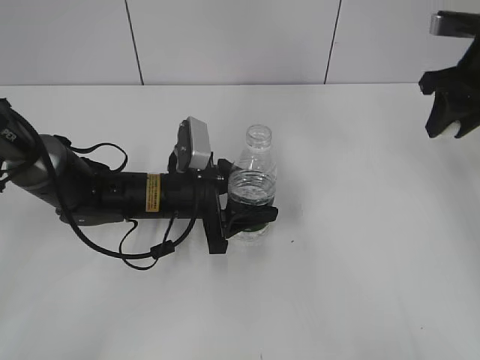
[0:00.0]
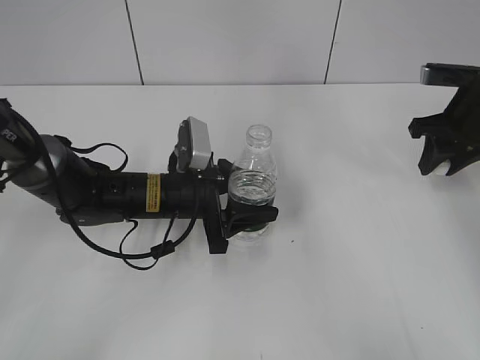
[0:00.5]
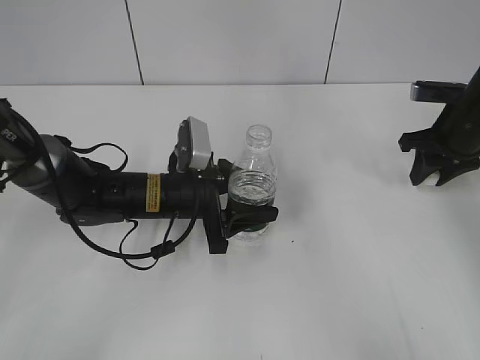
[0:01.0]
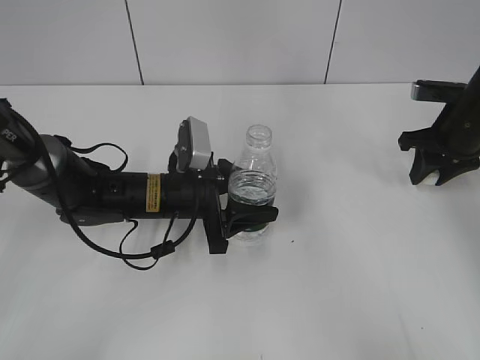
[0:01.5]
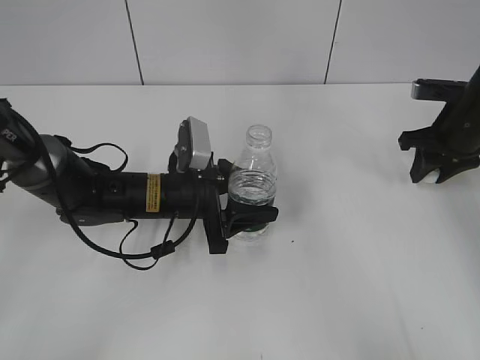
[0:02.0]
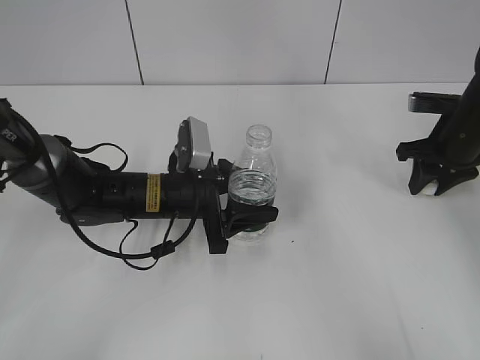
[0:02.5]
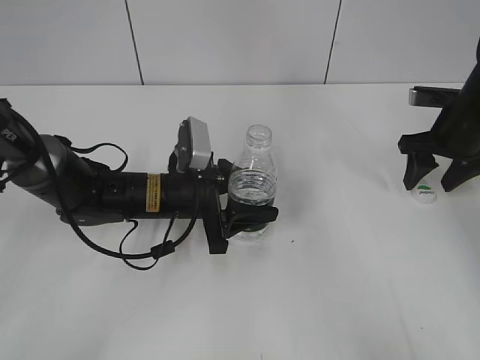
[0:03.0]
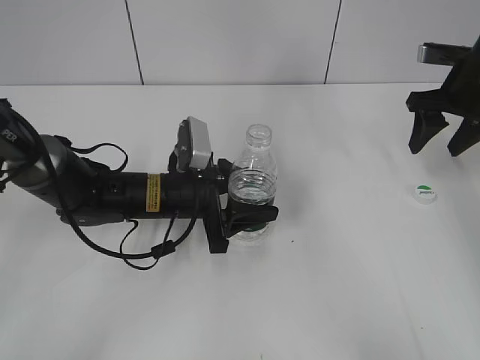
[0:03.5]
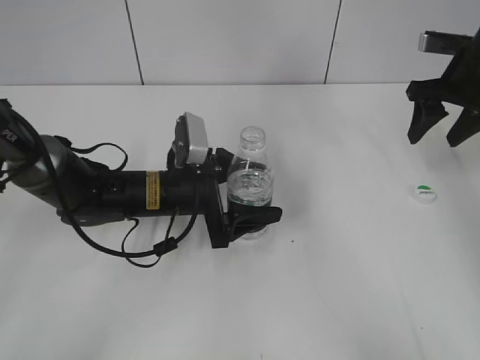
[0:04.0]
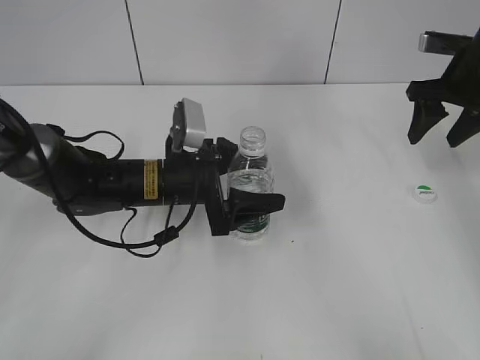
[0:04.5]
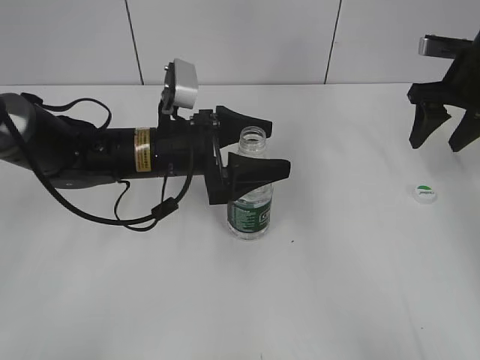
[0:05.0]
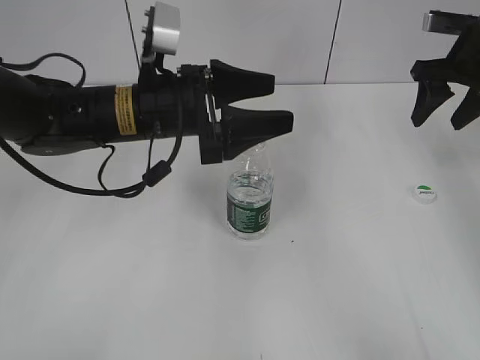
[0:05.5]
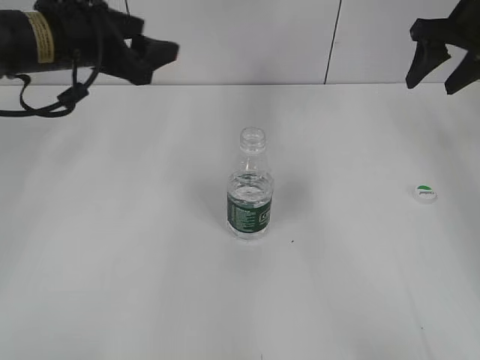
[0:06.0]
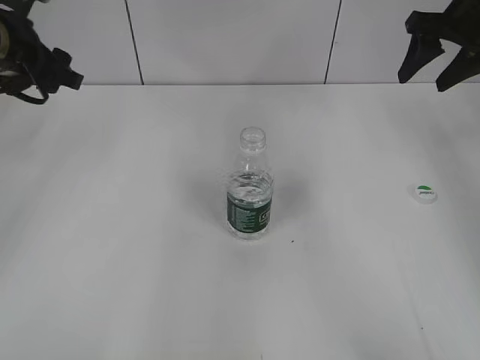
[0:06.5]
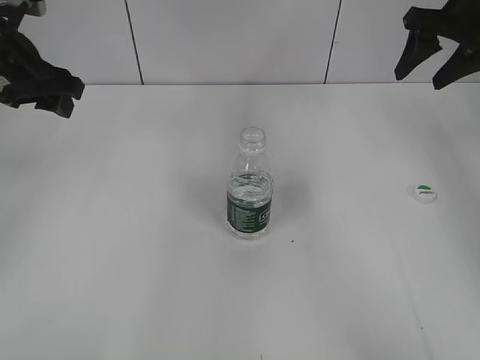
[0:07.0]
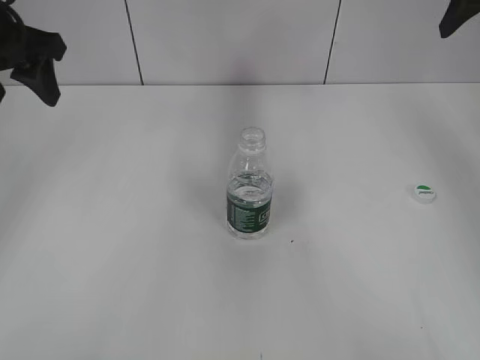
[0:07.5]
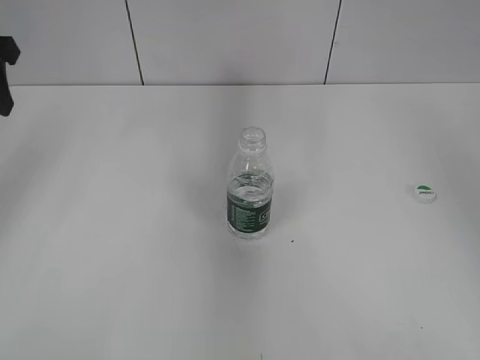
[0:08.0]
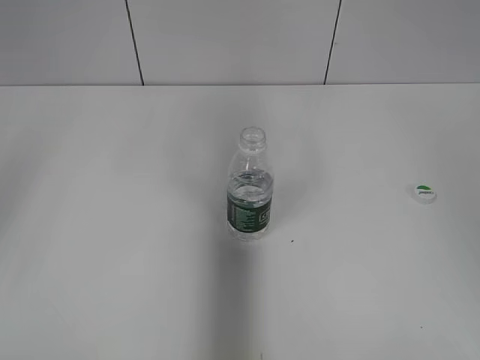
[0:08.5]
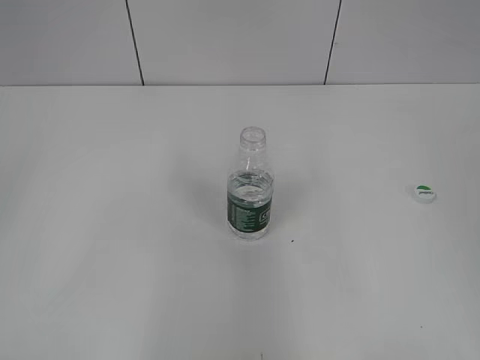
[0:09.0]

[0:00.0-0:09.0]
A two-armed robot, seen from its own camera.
Step, 0:00.0 to 0:03.0: Place the bottle cap on the table with the right gripper.
Step, 0:03.5 to 0:04.5: Place the bottle on the table with the left gripper.
0:00.0 to 0:02.0: The right gripper heads downward, covering roughly 10 cm.
0:02.0 to 0:04.5: The right gripper heads upward, covering some 5 cm, and opens its fingers. The left gripper opens its fingers.
0:04.5 to 0:07.0: The left gripper shifts roughly 25 cm to the left and upward, while the right gripper shifts approximately 5 cm upward.
0:07.0 to 0:09.0: The grippers both shift backward by roughly 35 cm.
